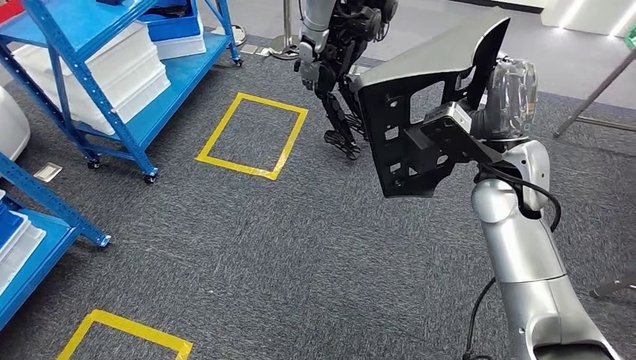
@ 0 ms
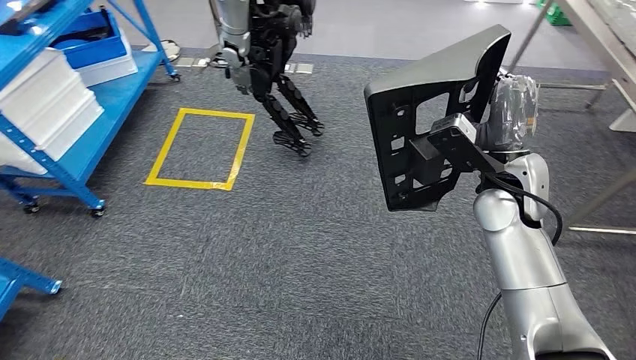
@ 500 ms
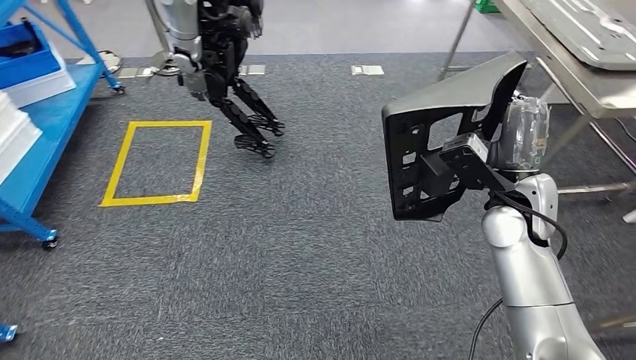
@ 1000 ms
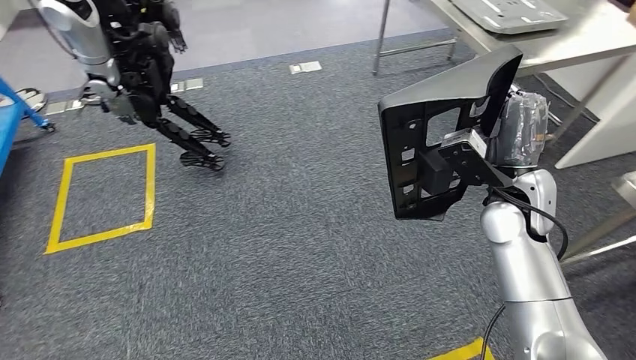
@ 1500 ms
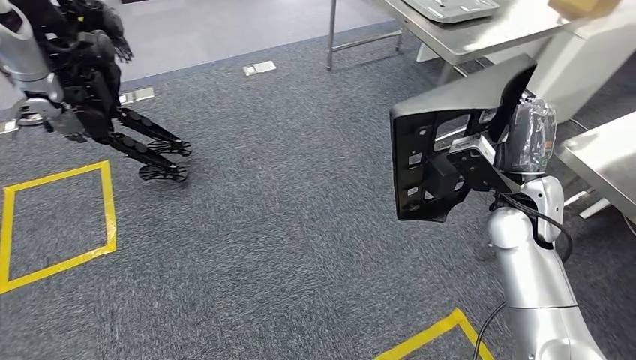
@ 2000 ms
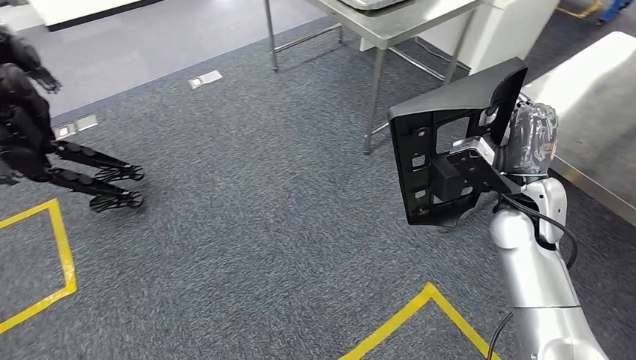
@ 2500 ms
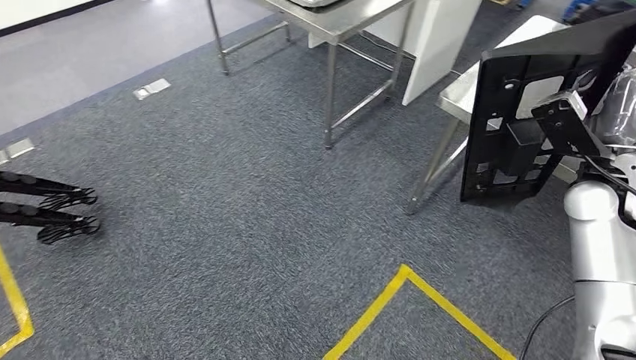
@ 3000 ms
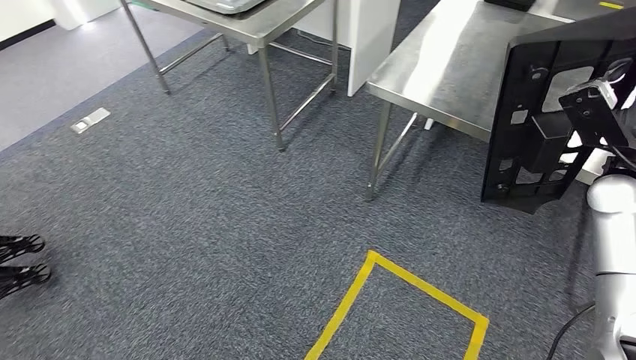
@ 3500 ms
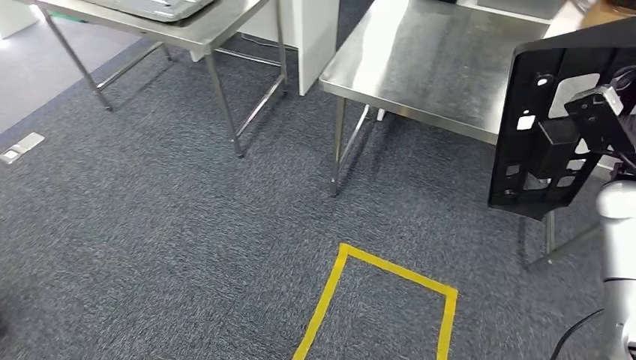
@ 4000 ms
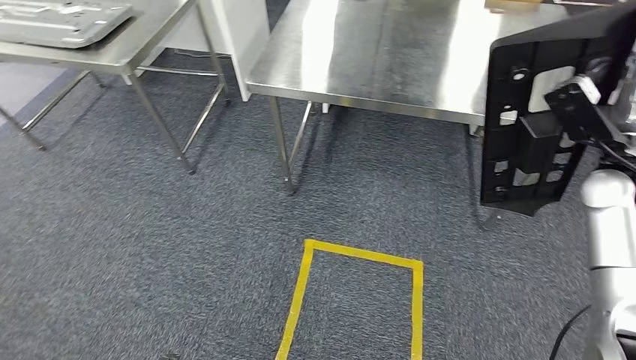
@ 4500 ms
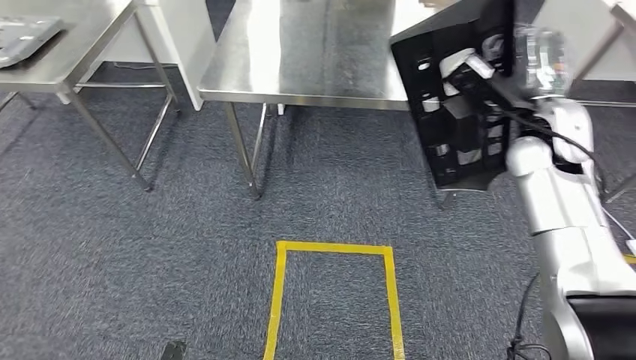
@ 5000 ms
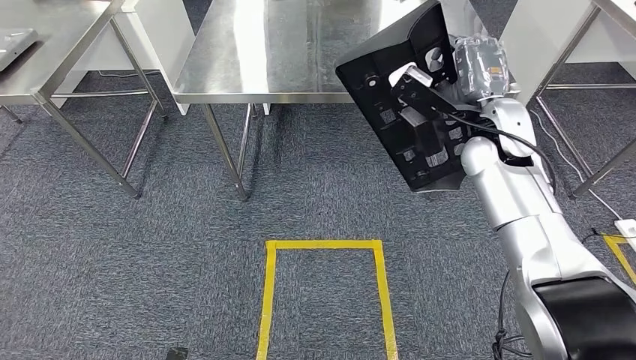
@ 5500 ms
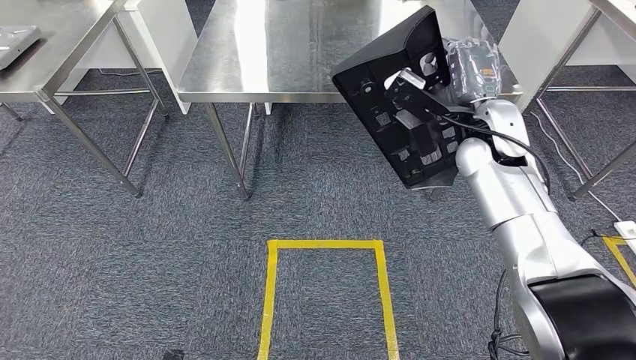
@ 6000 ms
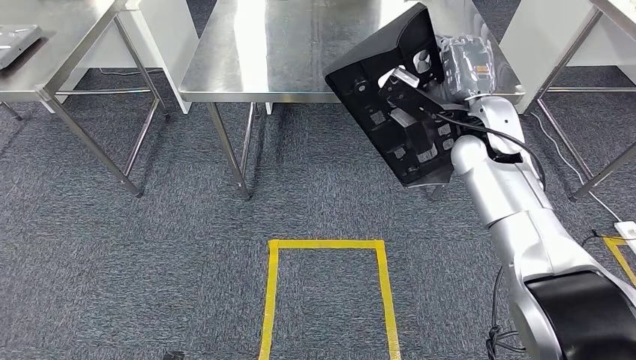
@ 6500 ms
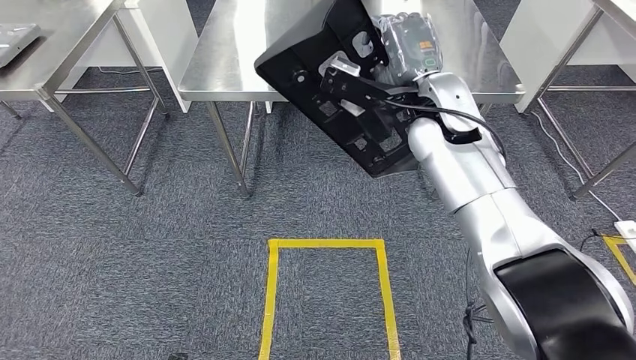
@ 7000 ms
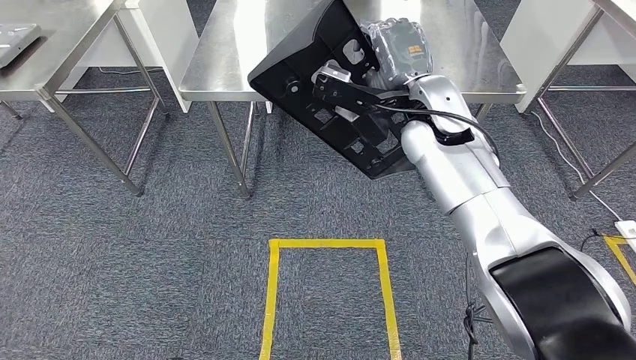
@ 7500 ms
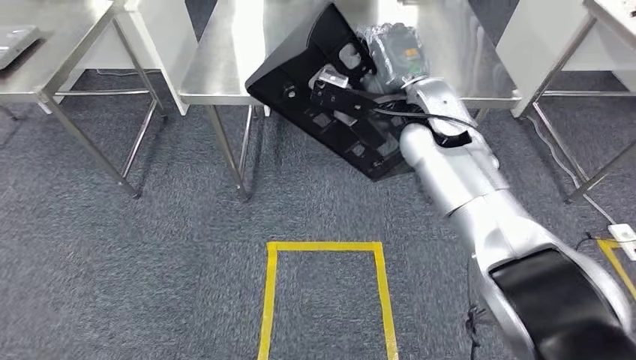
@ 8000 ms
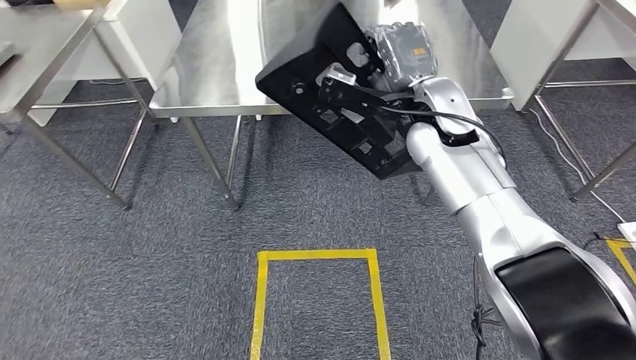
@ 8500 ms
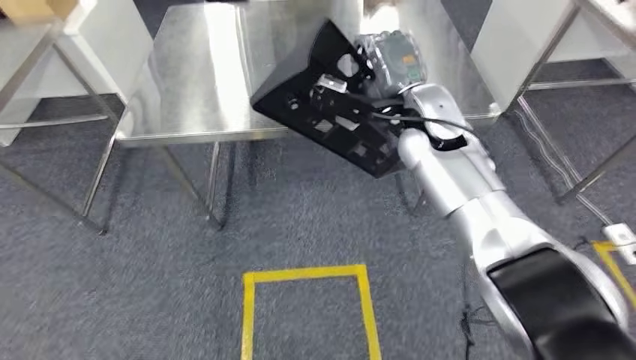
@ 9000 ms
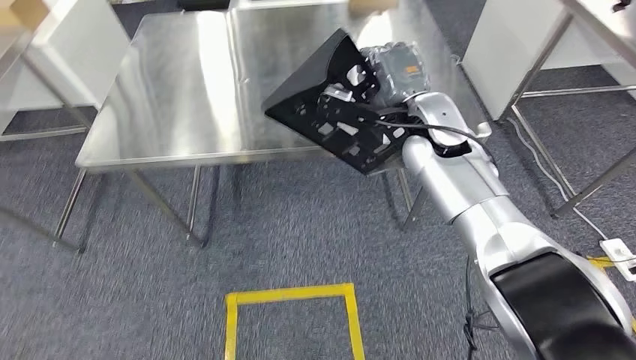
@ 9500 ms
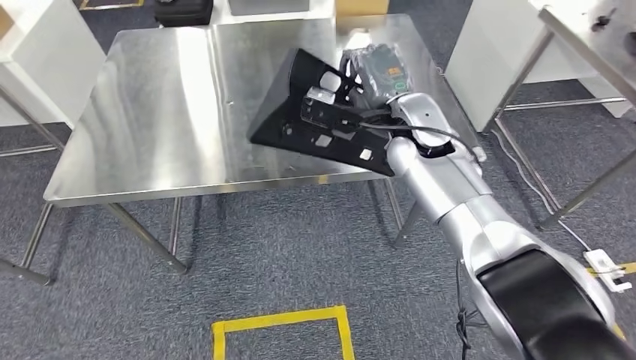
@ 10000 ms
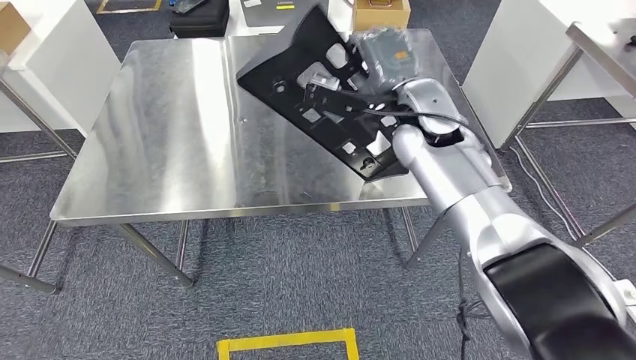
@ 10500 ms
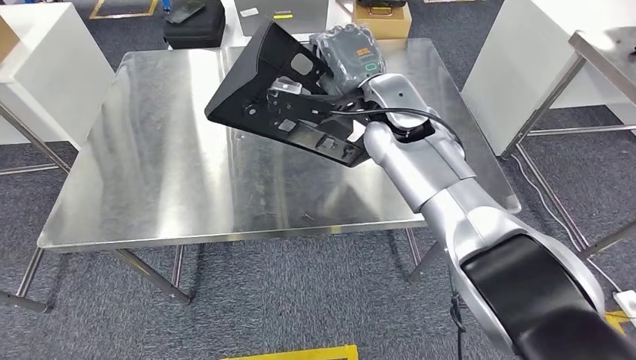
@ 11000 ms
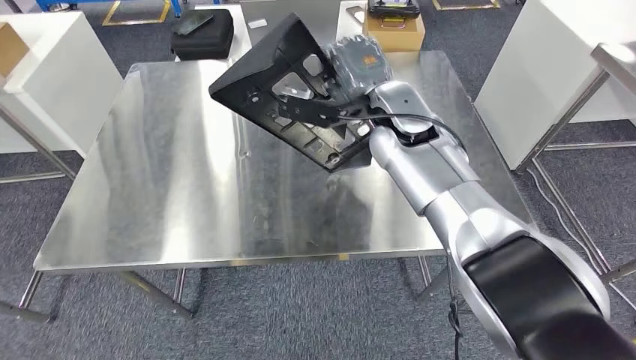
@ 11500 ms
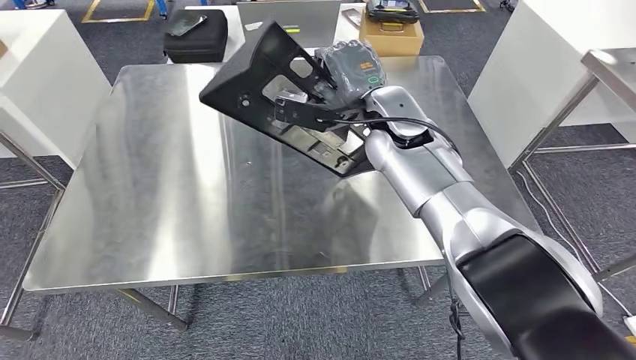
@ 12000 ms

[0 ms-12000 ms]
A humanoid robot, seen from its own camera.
Step, 0 ms to 9500 ms: Move the large material to the front of the workbench.

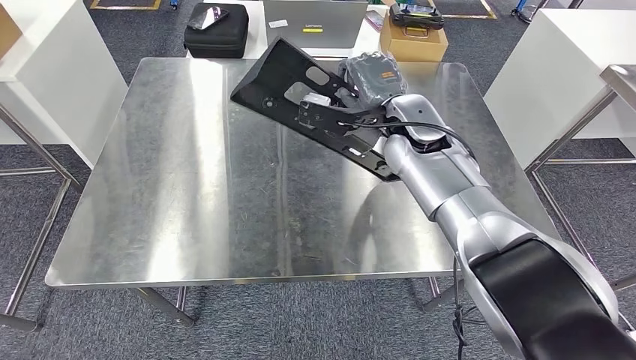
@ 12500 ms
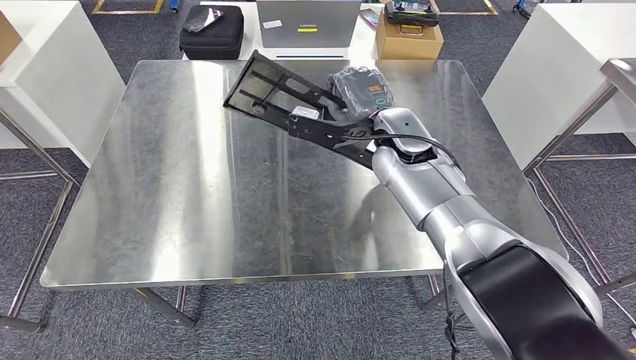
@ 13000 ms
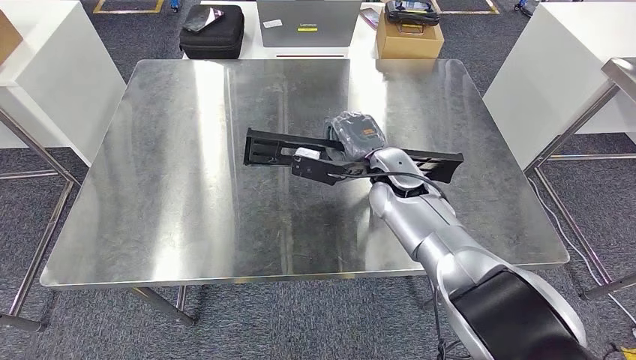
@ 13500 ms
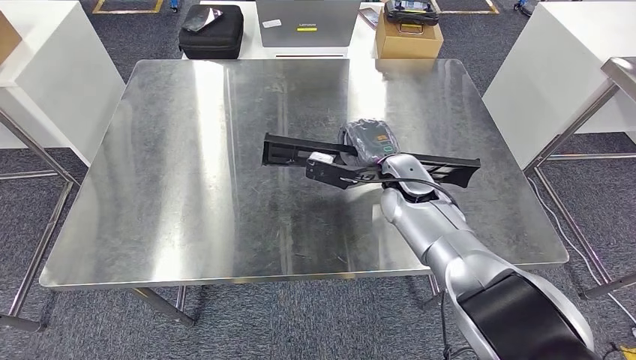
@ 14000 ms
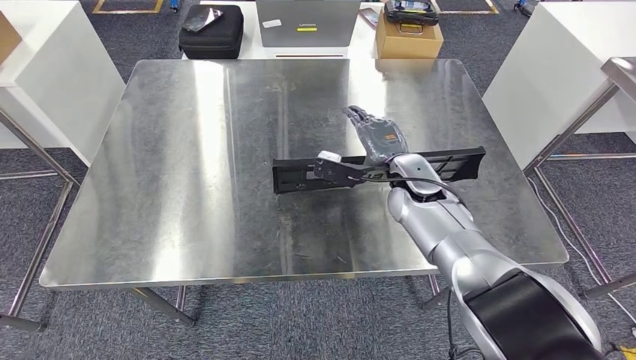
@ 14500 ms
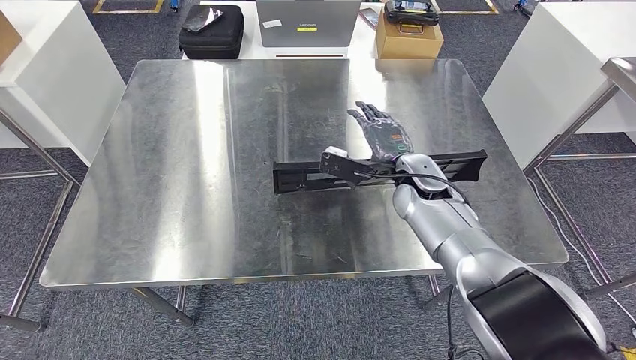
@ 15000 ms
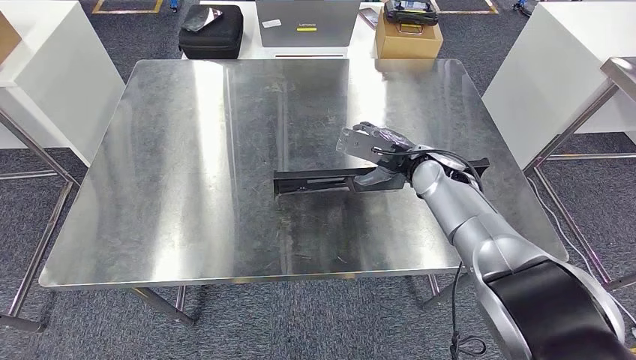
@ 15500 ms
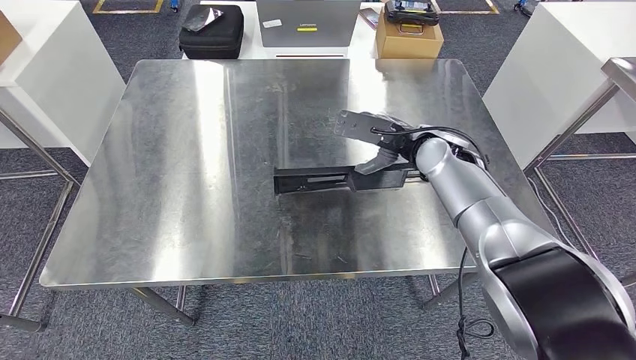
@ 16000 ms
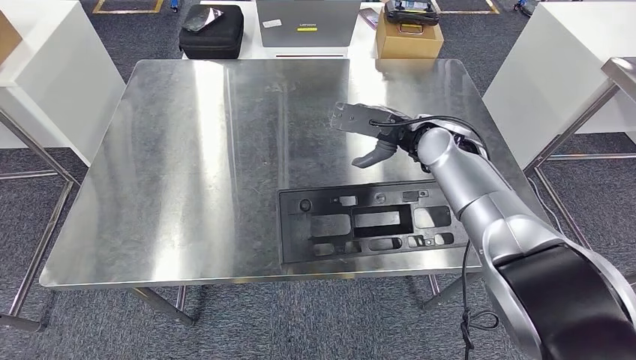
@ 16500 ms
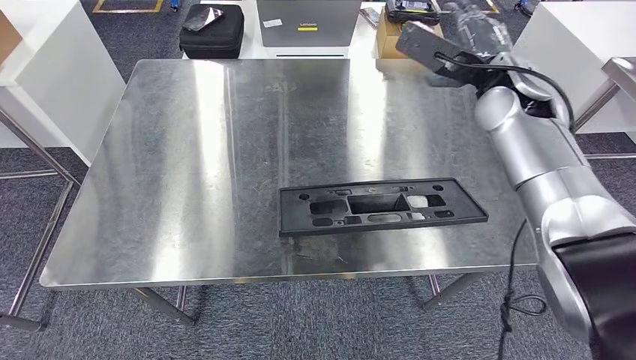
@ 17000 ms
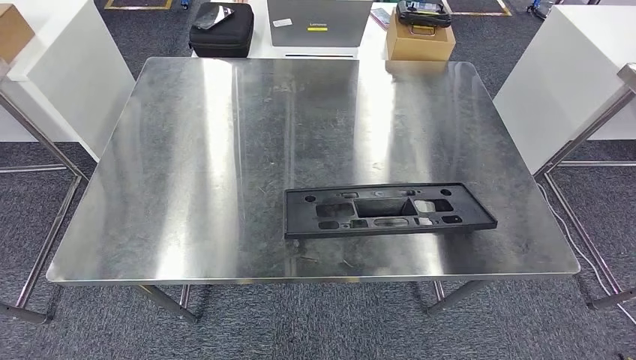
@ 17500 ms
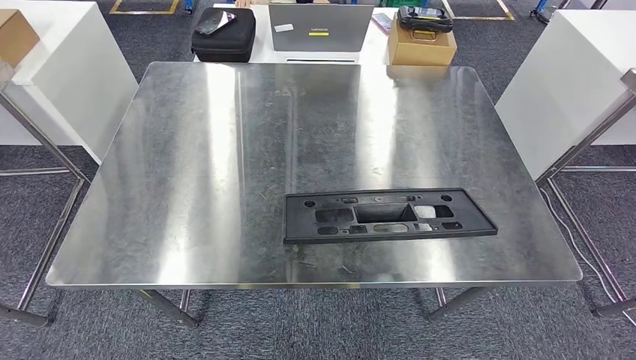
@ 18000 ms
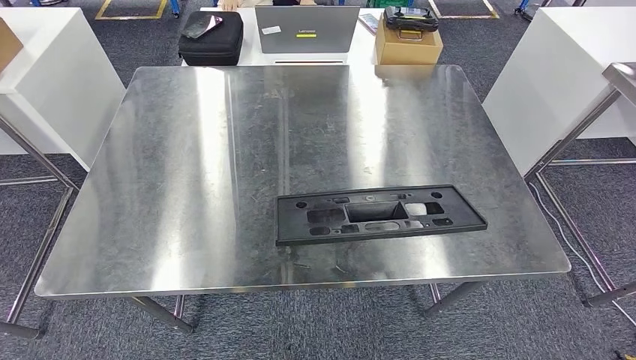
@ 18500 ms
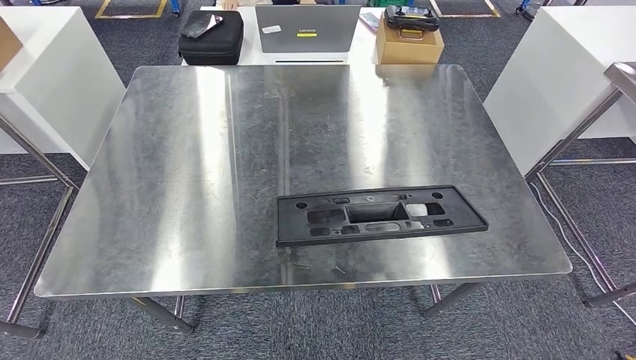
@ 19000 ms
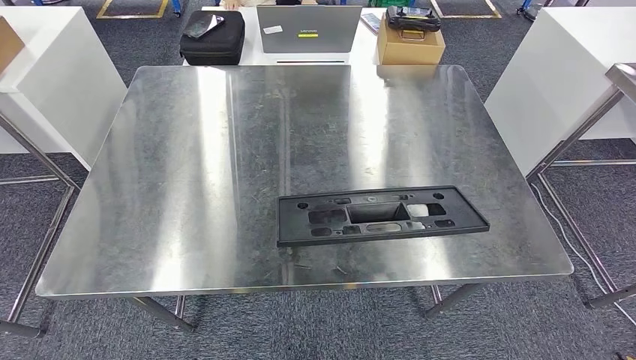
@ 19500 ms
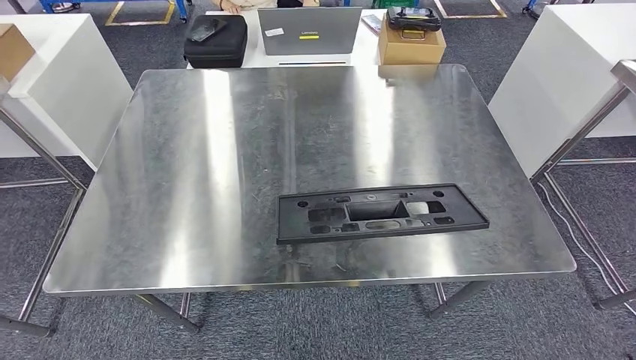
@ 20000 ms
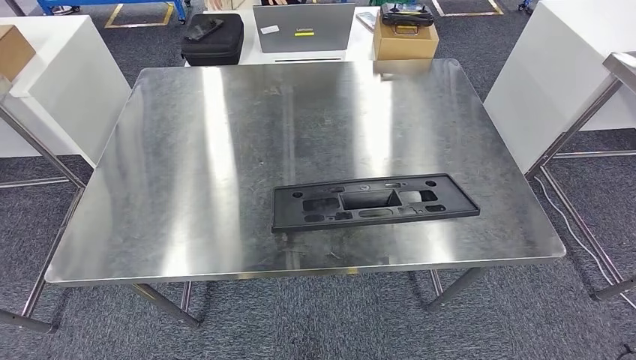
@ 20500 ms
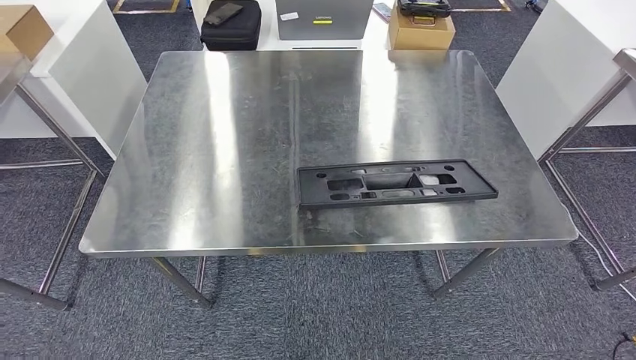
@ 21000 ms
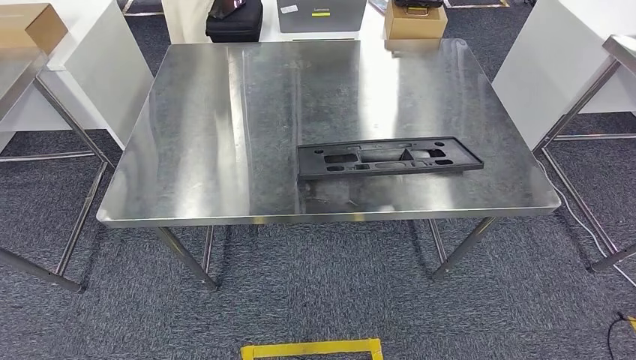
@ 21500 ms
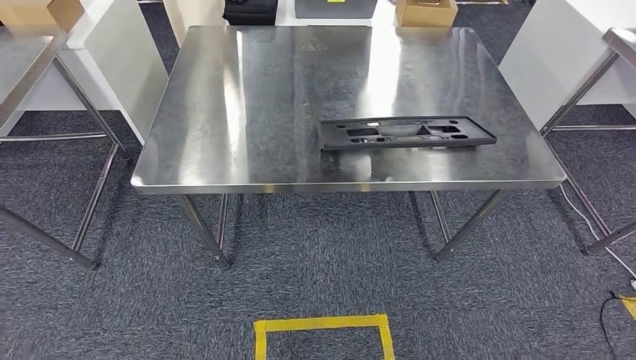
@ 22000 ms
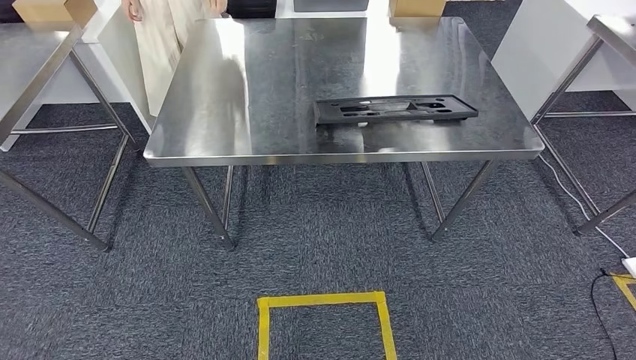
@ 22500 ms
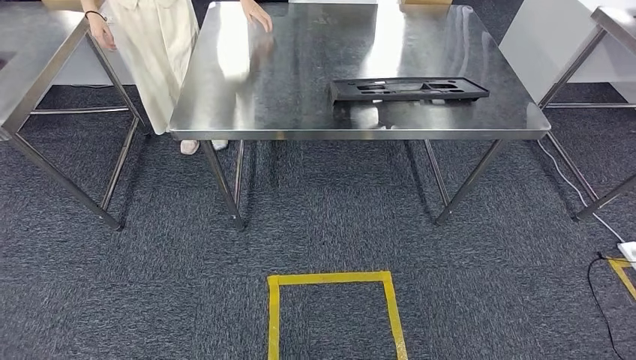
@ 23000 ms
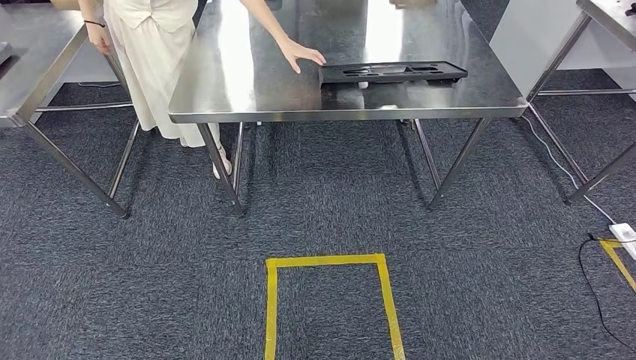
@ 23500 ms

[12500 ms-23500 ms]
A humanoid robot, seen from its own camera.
Step, 12500 ms to 19000 ms: Insert the large material into the corresponding hole on the workbench.
14500 ms to 16000 ms: The right hand is displaced upward by about 5 cm.
18000 ms to 20000 ms: The right hand is displaced downward and to the left by about 50 cm.
